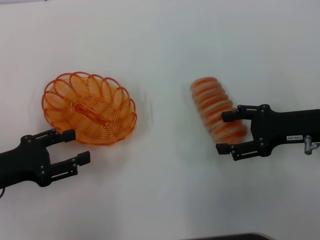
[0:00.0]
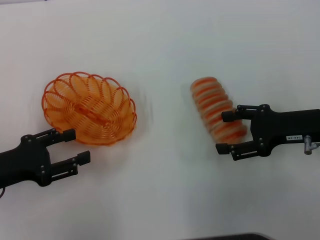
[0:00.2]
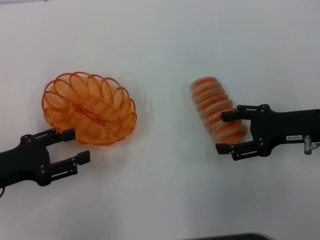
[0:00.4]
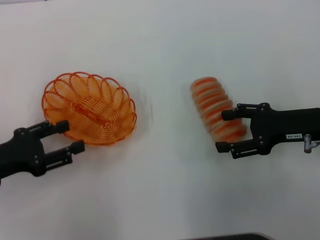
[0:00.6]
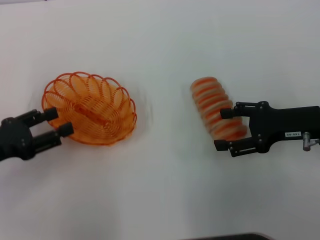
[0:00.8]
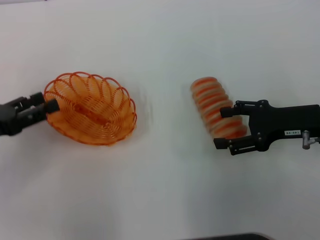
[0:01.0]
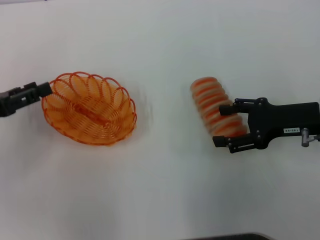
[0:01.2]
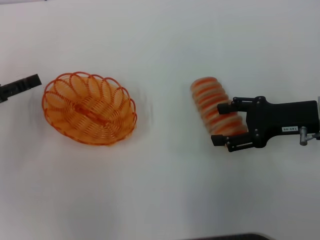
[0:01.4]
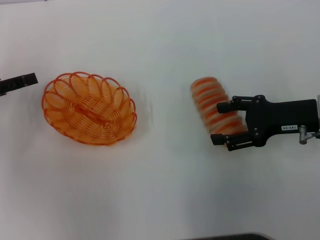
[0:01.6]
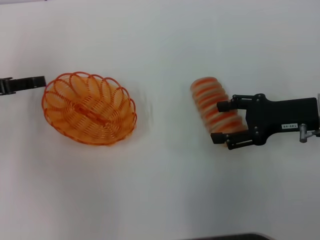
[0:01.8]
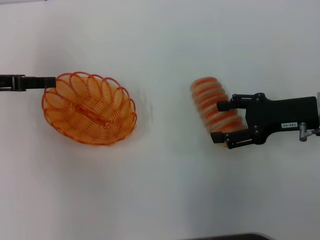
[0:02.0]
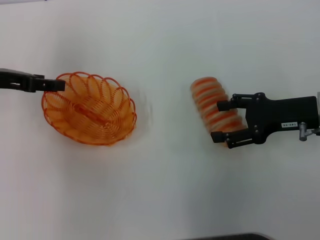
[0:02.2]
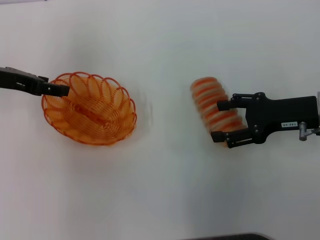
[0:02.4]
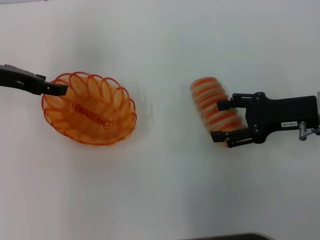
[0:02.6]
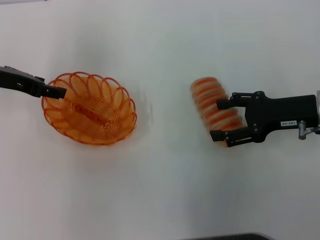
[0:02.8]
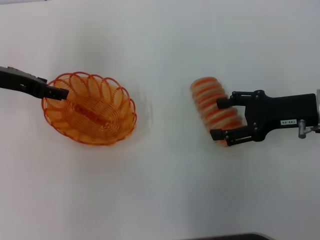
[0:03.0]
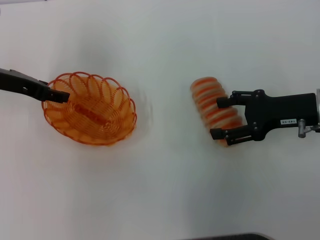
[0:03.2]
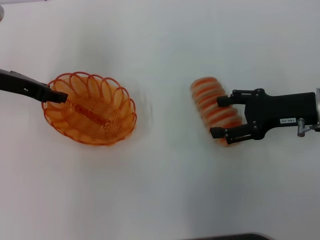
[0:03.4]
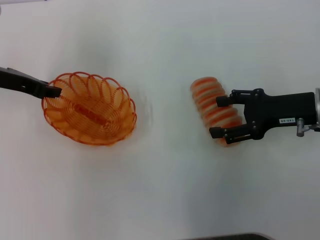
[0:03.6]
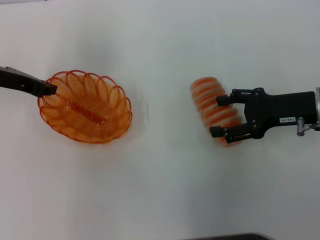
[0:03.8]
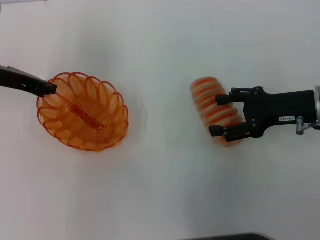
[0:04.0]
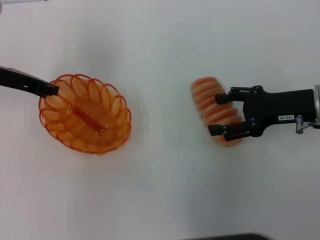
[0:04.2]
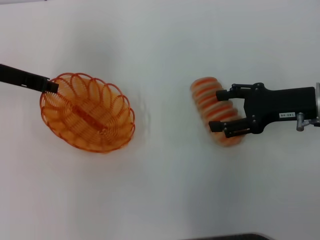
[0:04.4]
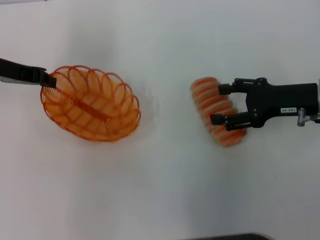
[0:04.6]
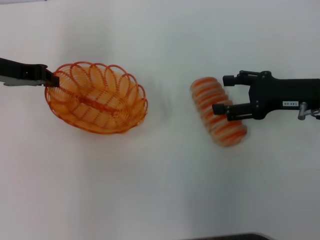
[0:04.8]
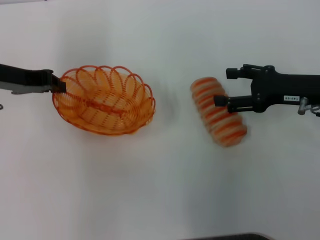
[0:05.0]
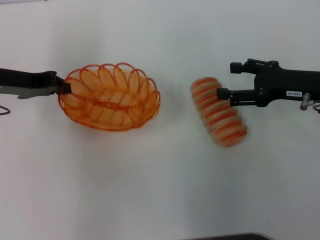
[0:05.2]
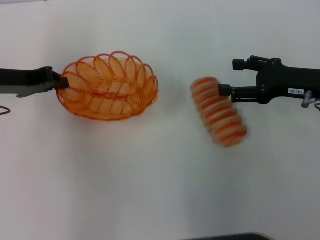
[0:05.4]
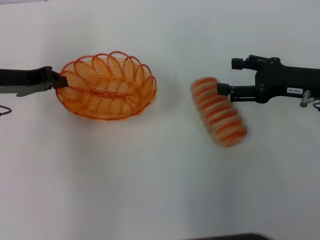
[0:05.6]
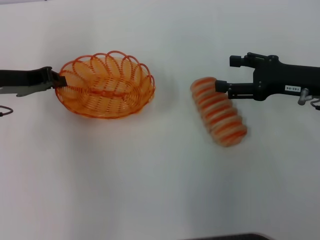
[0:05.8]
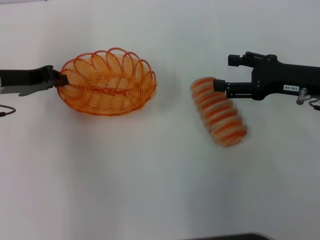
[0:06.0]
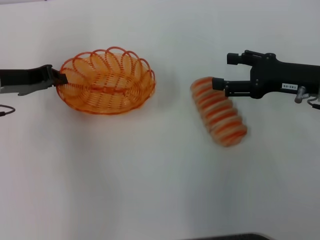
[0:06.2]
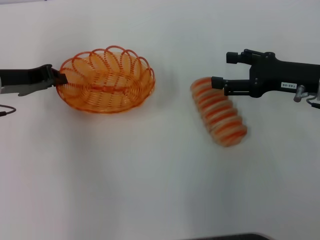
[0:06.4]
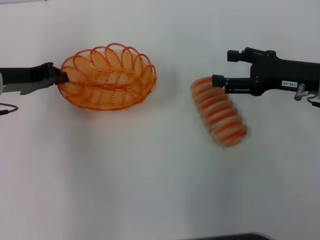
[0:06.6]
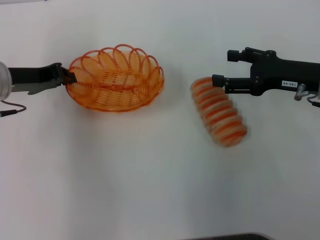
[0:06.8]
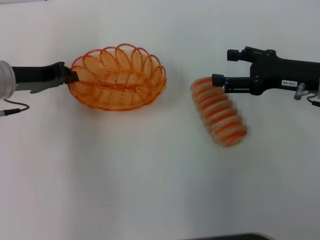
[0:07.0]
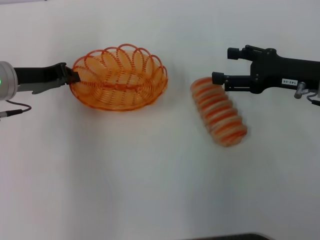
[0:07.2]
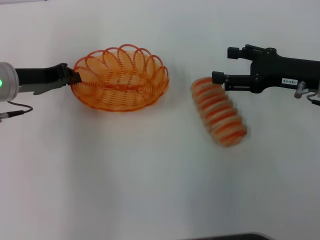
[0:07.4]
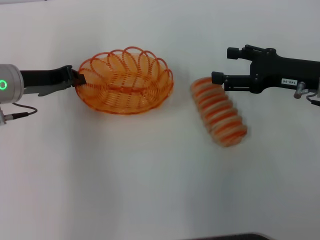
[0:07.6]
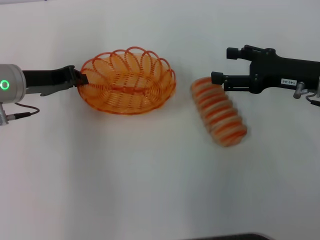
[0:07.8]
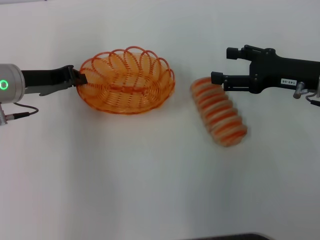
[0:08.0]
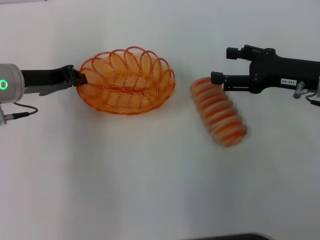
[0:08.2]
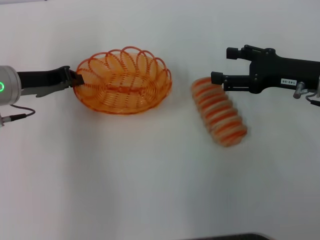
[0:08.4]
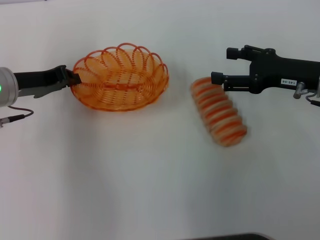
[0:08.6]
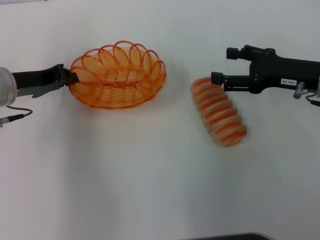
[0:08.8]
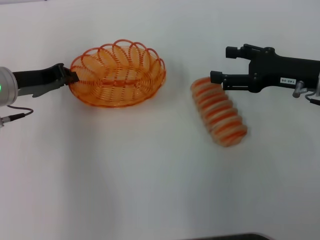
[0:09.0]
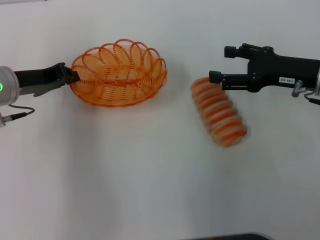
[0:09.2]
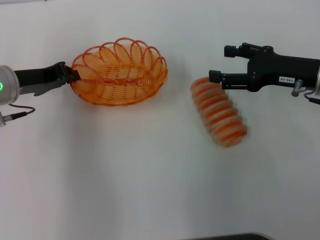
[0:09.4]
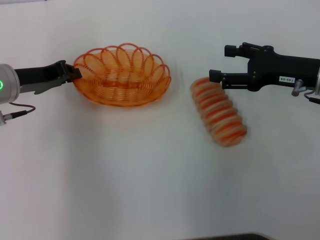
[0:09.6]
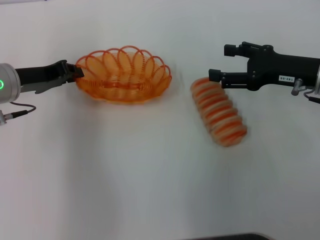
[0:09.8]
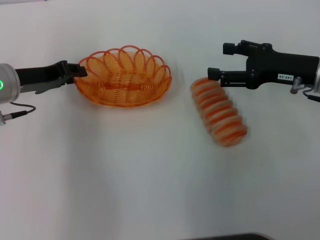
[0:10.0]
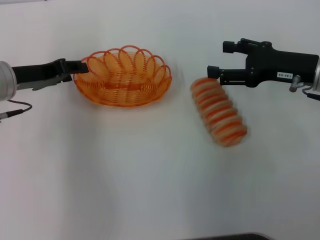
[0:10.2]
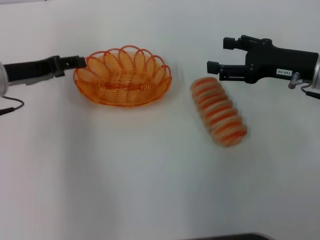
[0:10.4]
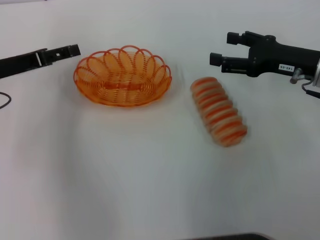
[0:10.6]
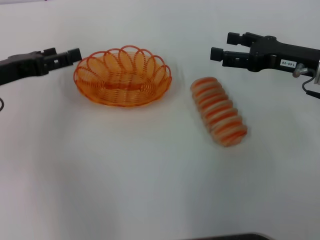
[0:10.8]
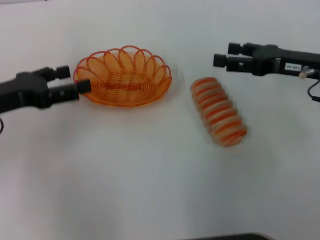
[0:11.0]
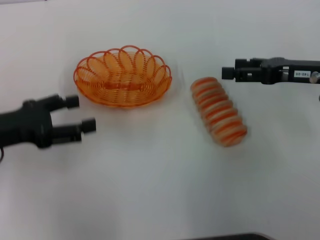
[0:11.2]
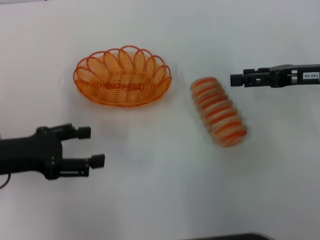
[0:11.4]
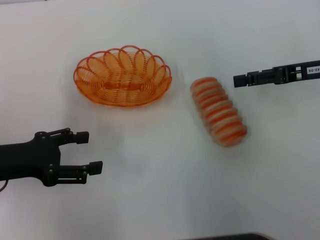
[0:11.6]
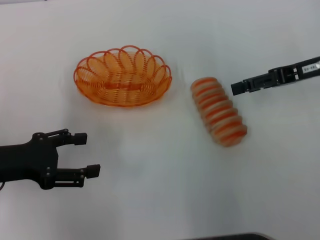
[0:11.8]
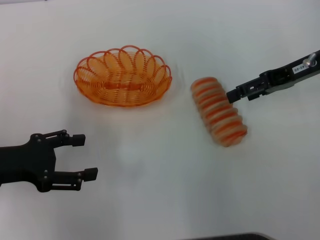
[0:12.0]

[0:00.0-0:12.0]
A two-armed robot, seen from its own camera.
Step, 0:00.0 to 0:04.8: Pick up the basket with the left gripper.
Step, 0:05.0 to 0:11.0: Place the basket in the center of view with the left gripper.
0:00.0 to 0:01.6: The left gripper travels forward by approximately 10 cm.
0:01.6 to 0:03.0: The left gripper goes roughly 10 cm to the right and forward.
0:03.0 to 0:04.4: The left gripper closes.
0:06.0 to 0:09.0: The grippers stay close to where they were, moving slightly.
0:09.0 to 0:10.4: The left gripper opens.
0:10.4 to 0:12.0: The right gripper is displaced upward by approximately 5 cm. Meanwhile the left gripper goes about 10 cm backward, and opens its fingers.

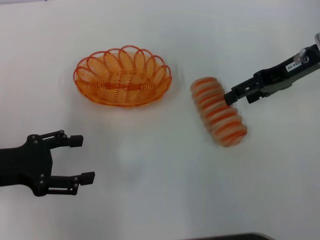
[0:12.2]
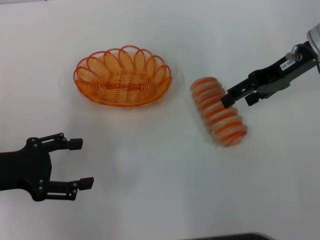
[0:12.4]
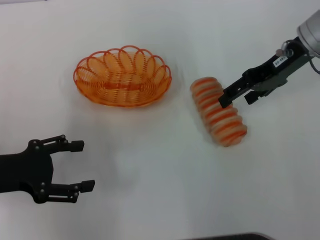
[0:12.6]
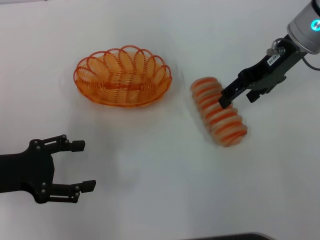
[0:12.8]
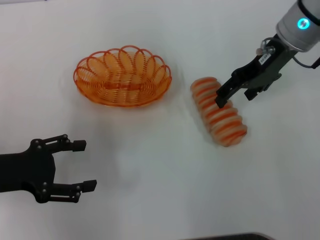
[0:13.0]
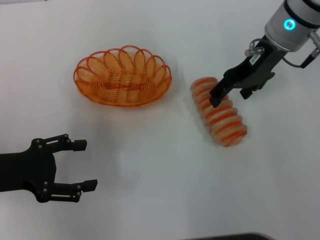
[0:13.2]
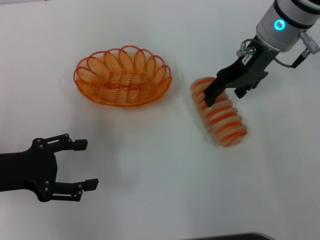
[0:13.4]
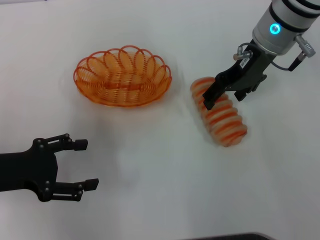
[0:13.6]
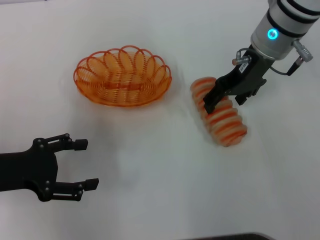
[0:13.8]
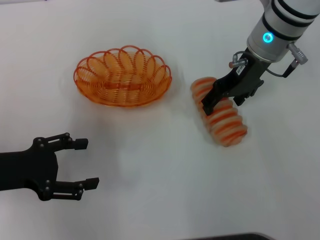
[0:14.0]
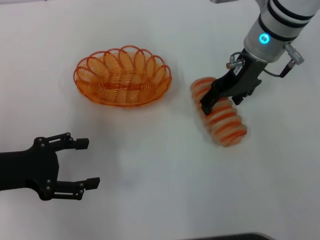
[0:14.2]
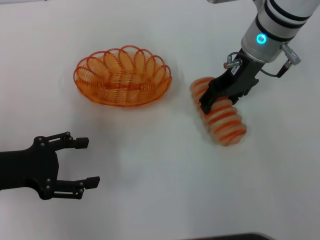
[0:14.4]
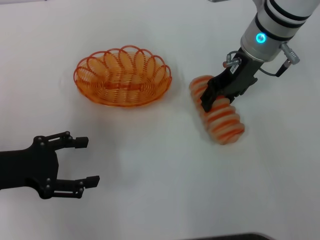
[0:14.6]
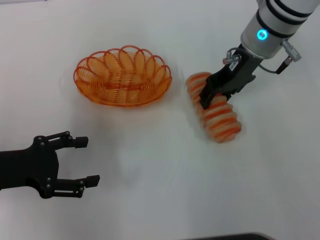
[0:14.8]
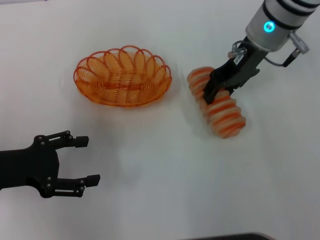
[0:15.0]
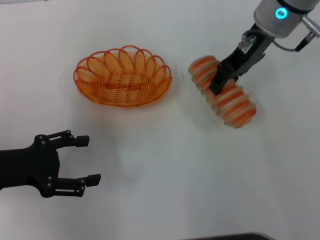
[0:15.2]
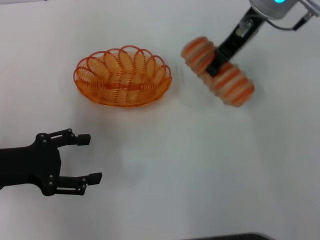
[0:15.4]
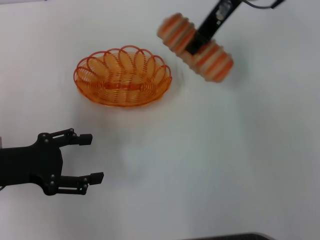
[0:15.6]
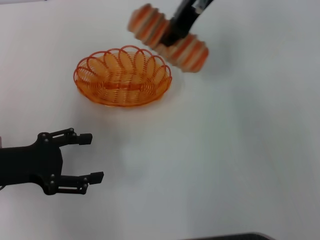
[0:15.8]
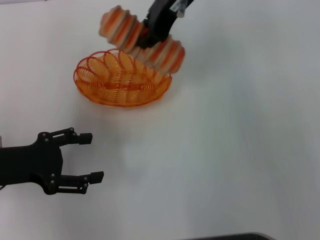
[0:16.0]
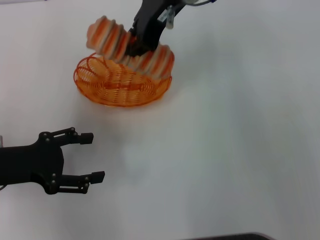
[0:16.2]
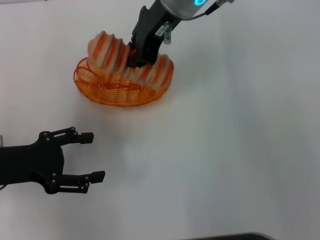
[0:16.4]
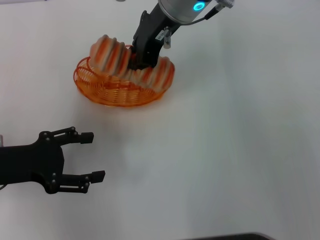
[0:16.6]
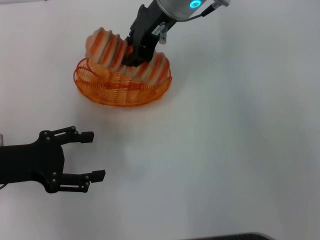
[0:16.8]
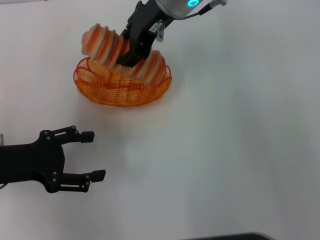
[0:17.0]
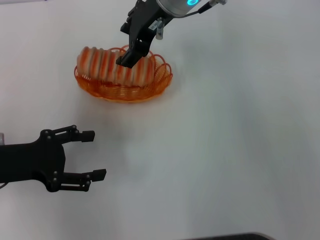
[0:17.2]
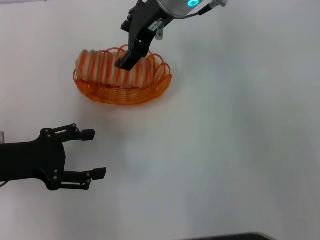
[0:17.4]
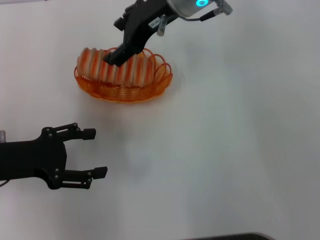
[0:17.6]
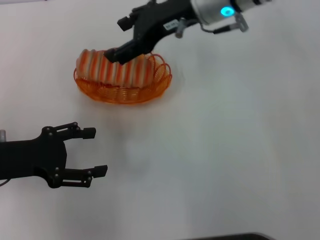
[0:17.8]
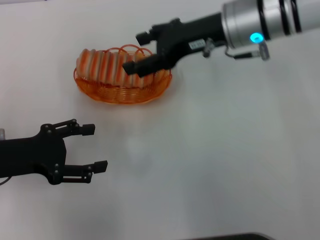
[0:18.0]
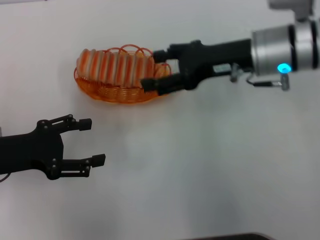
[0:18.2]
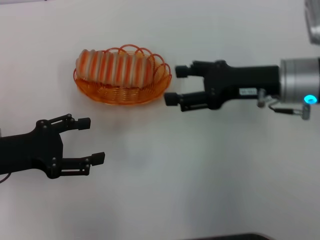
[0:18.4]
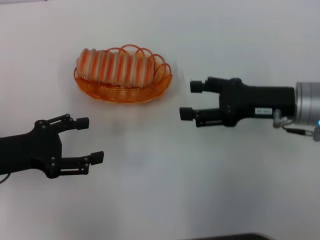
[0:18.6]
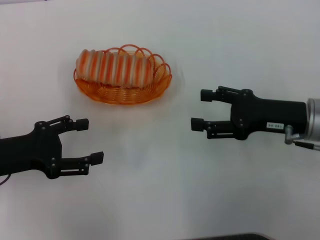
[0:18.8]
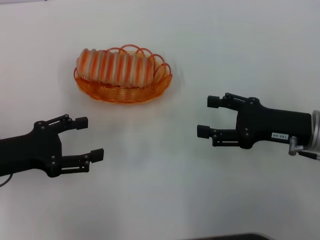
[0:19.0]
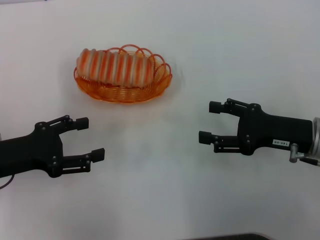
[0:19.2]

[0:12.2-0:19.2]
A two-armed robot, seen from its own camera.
Step, 0:12.2 to 0:15.0: Pick up the long bread with the right gripper.
Step, 0:15.2 to 0:18.2: Place the long bread into the basket with the right gripper.
0:12.2 to 0:13.6: The right gripper heads to the left, covering about 10 cm.
0:13.6 to 0:15.0: The right gripper closes its fingers.
0:15.0 to 0:16.4: The right gripper moves to the left and upward, some 10 cm, and closes its fingers.
0:16.4 to 0:17.8: The right gripper moves to the right, approximately 5 cm, and opens up.
0:17.8 to 0:19.2: The right gripper is displaced backward, to the right and downward by approximately 25 cm.

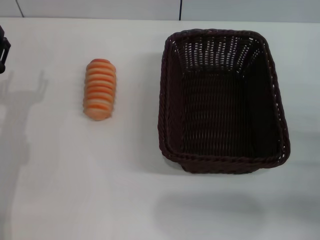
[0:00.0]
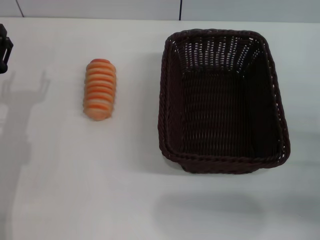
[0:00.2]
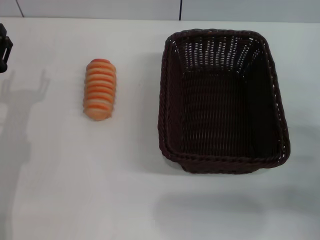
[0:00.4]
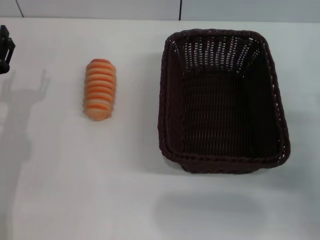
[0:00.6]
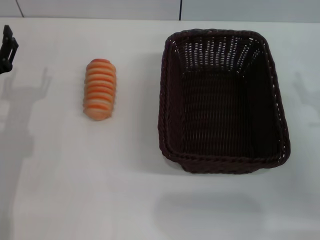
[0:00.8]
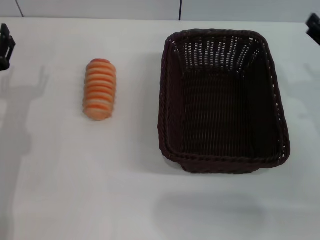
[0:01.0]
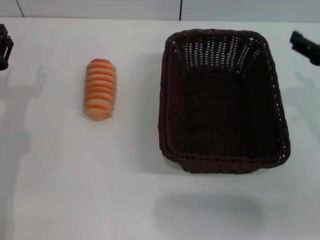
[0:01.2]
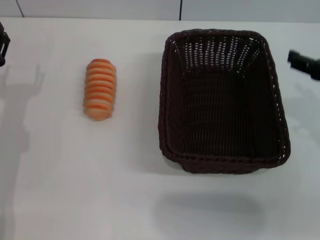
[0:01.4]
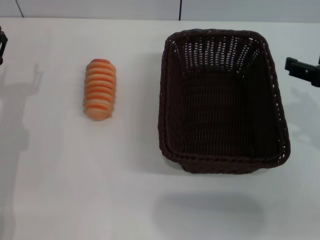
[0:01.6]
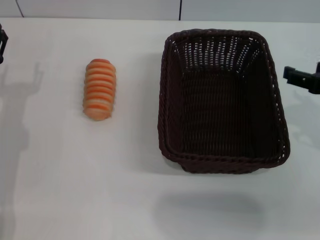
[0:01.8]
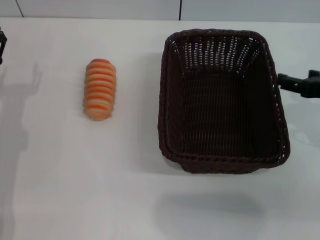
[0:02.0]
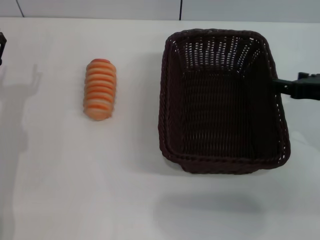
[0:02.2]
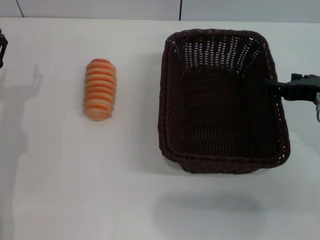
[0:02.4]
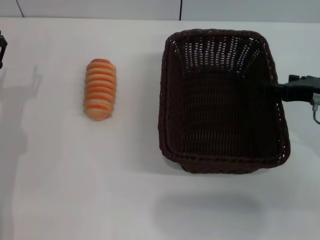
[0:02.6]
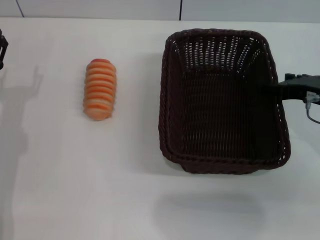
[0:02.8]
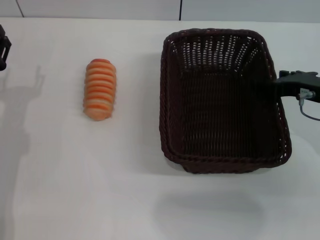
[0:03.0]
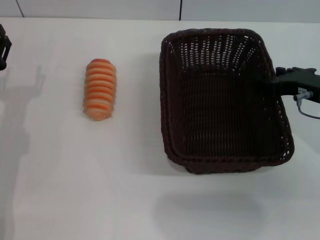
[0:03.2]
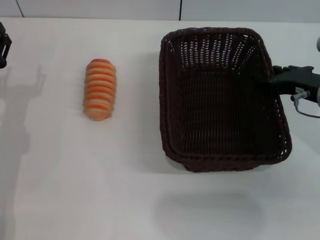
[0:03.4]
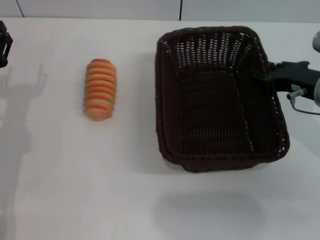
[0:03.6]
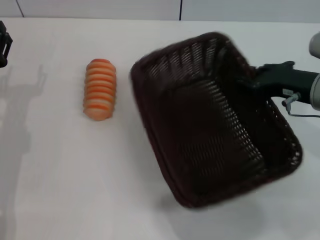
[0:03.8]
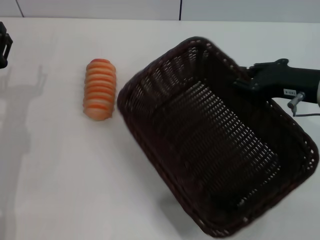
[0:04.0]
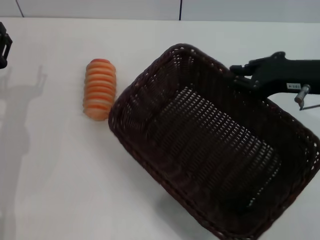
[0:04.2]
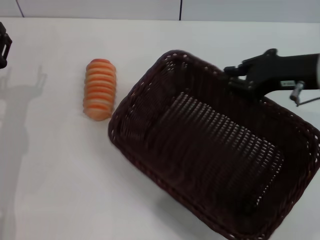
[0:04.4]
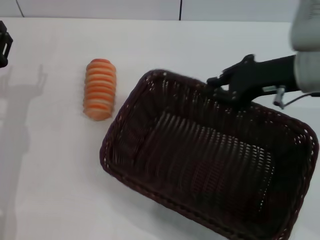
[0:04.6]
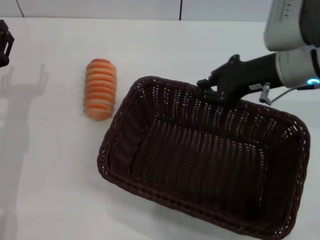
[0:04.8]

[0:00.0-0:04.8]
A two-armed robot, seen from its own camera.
Step, 0:00.0 to 0:04.0: Pick up the dark basket with the right gripper.
0:00.0 to 0:01.6: The right gripper moves upward and forward, approximately 15 cm.
0:01.6 to 0:03.2: The right gripper moves downward and forward, roughly 10 cm.
0:03.2 to 0:04.8: The right gripper moves to the left and upward, some 10 cm, and closes its fingers.
